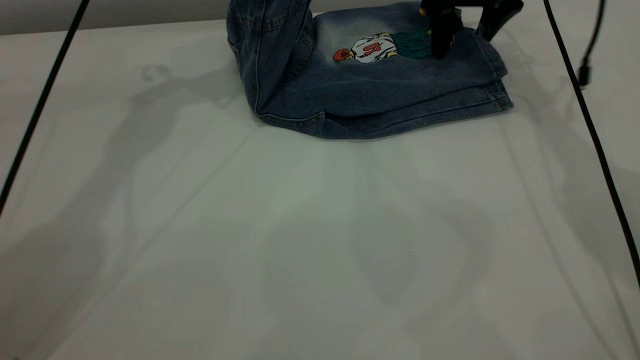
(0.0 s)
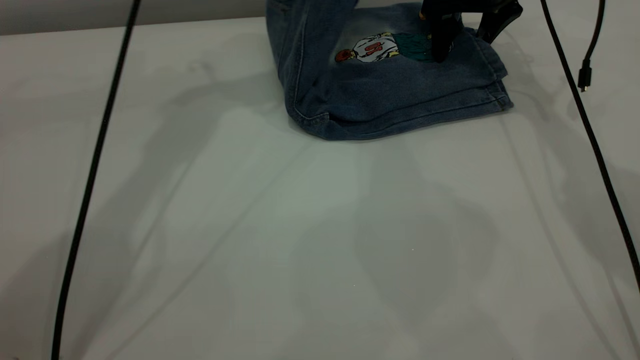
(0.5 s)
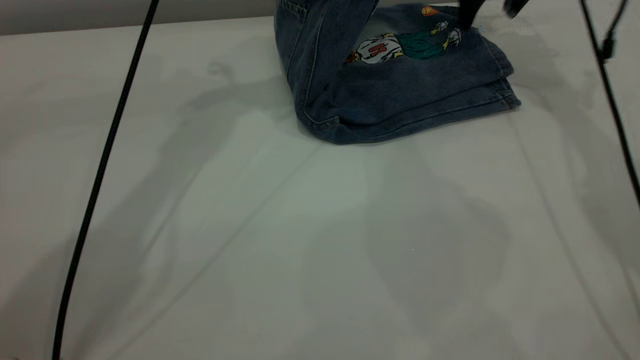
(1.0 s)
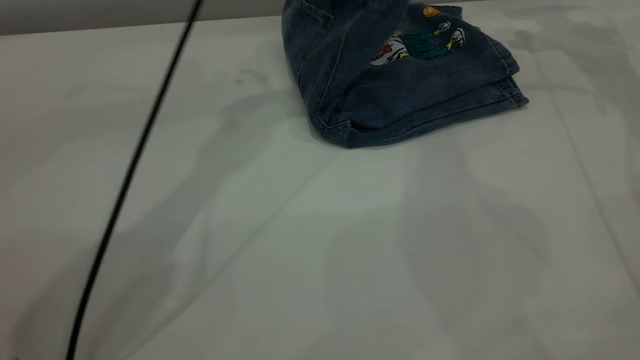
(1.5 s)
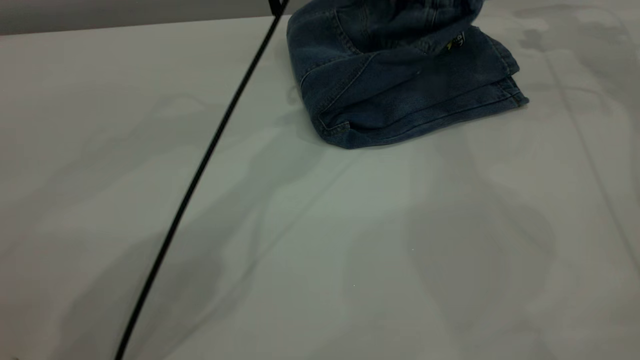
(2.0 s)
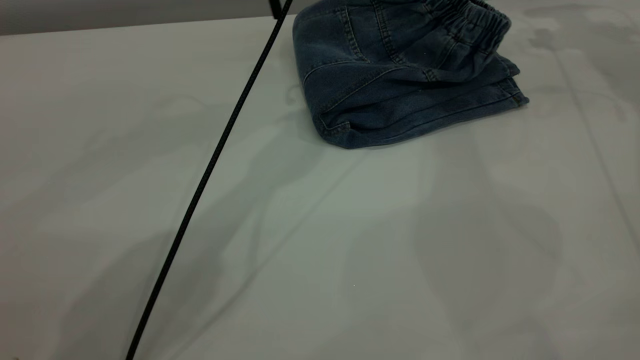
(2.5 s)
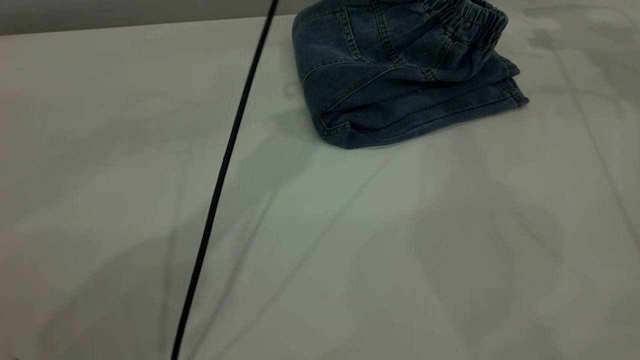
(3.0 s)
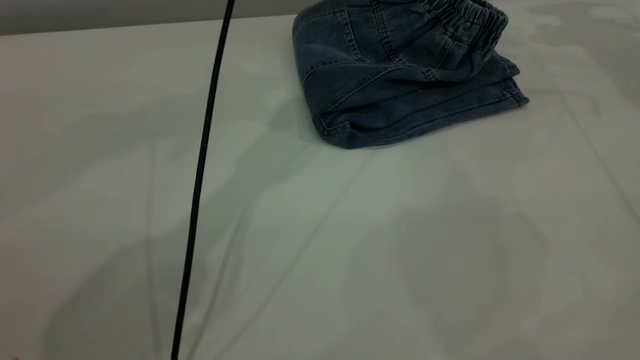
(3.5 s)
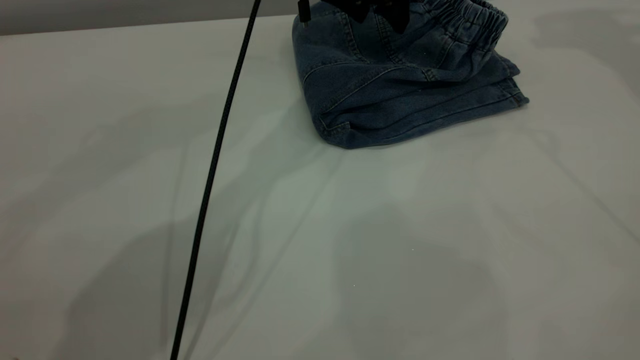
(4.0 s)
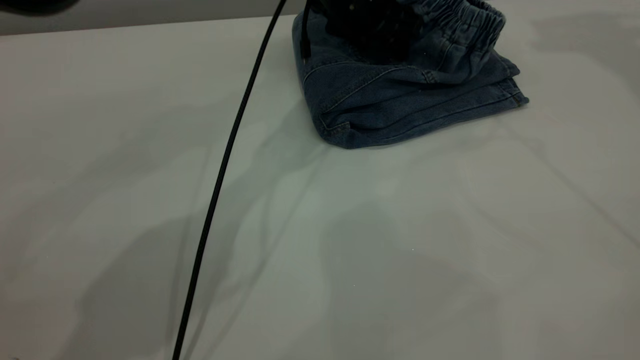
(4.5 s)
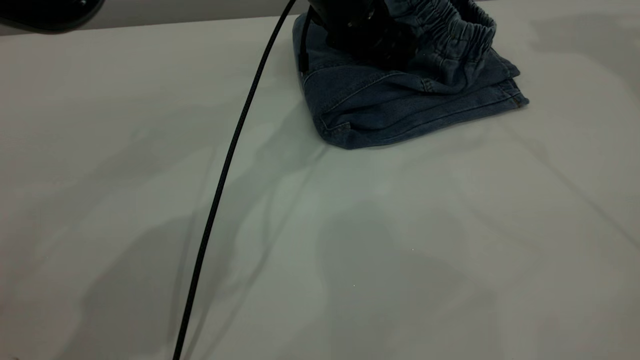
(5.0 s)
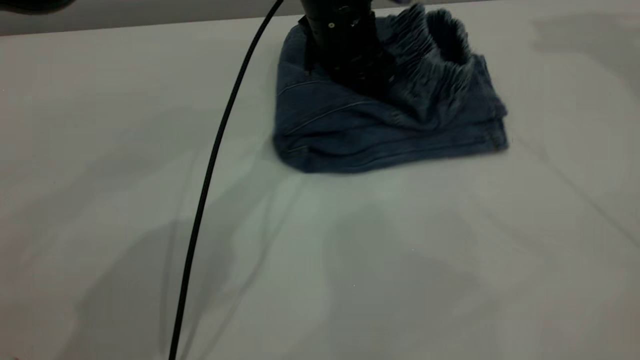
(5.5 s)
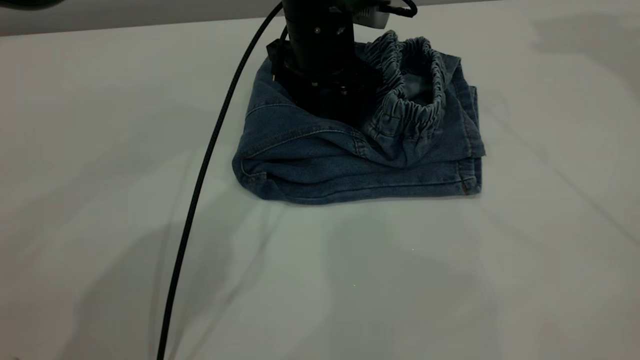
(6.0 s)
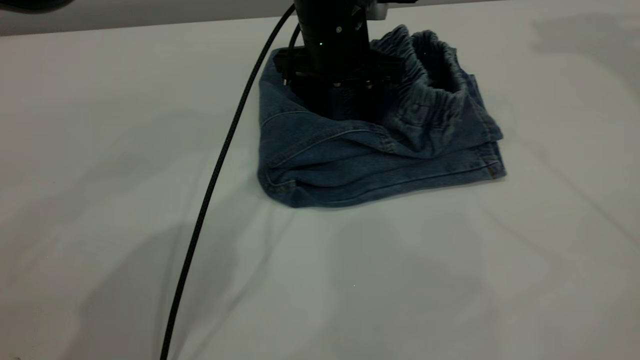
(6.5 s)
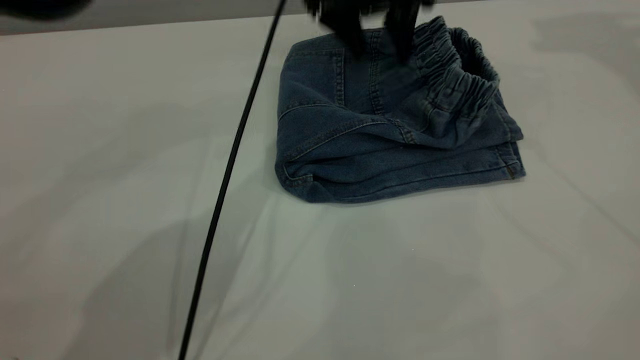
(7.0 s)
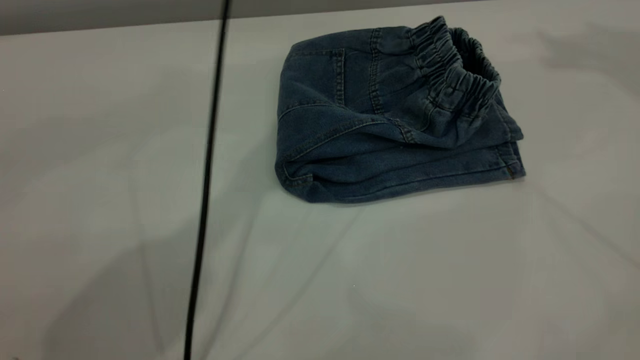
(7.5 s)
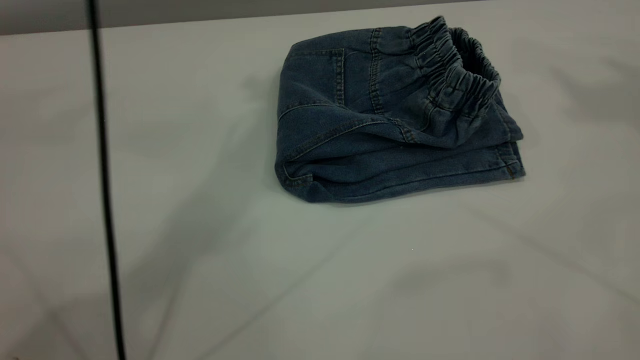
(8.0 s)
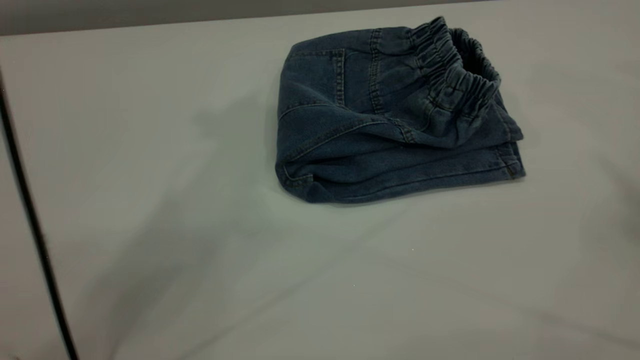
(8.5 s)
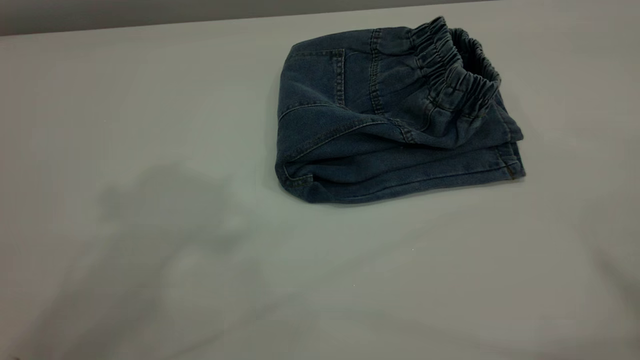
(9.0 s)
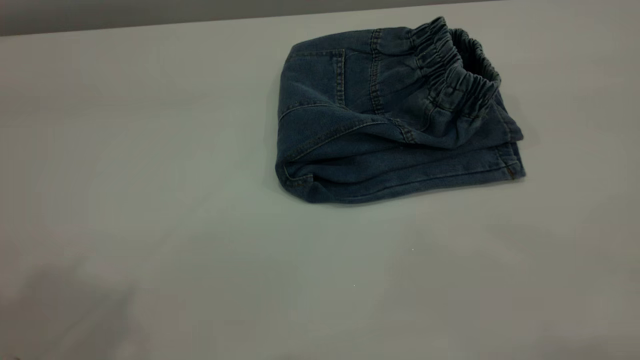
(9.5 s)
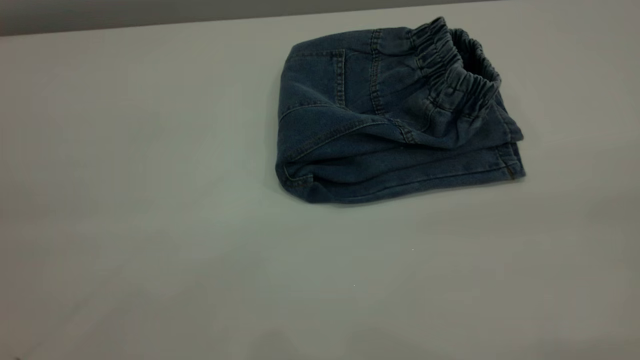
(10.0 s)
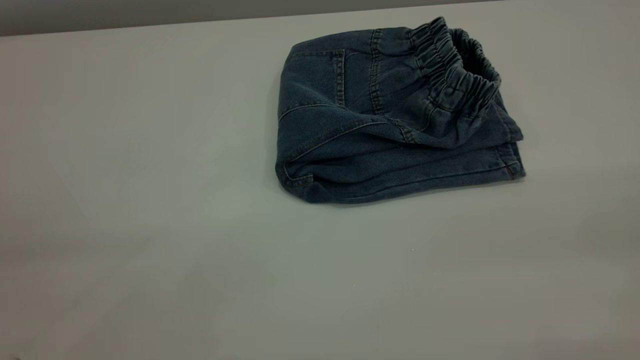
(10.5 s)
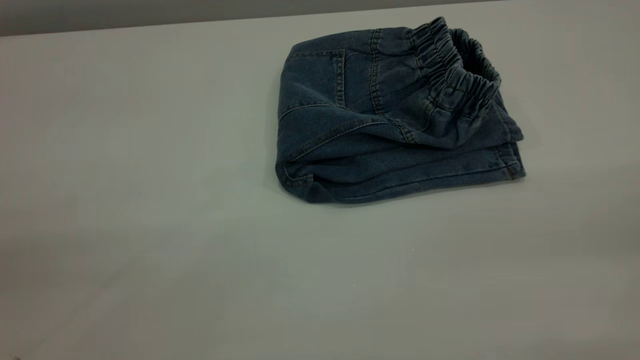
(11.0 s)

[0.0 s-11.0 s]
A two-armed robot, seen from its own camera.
Step, 0.0 to 2.5 s: Fold the pants from left to right.
0.0 to 2.0 s: The left gripper is displaced to the right by roughly 20 cm. The right gripper moves to the right and upward, some 15 cm.
2.0 to 3.5 s: The left gripper moves approximately 5 cm, and opens. Meanwhile the right gripper heads upward, covering roughly 5 cm.
3.5 to 5.5 s: The right gripper is displaced upward by approximately 15 cm; the left gripper heads downward, covering some 15 cm.
5.5 to 7.5 s: The right gripper is displaced upward and backward by roughly 10 cm. Meanwhile the left gripper goes roughly 25 cm upward.
7.5 to 9.0 s: The left gripper heads backward, upward and to the left, covering roughly 35 cm.

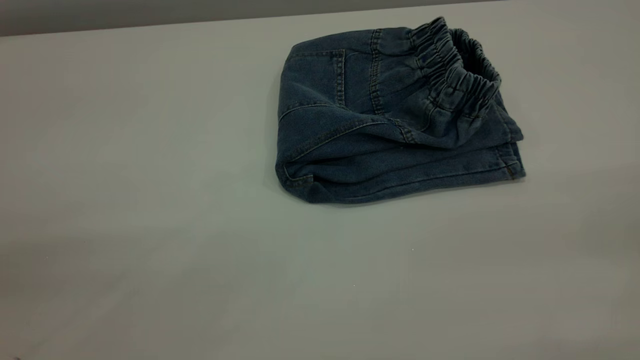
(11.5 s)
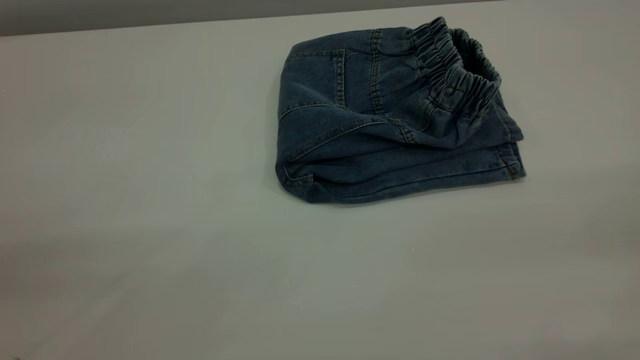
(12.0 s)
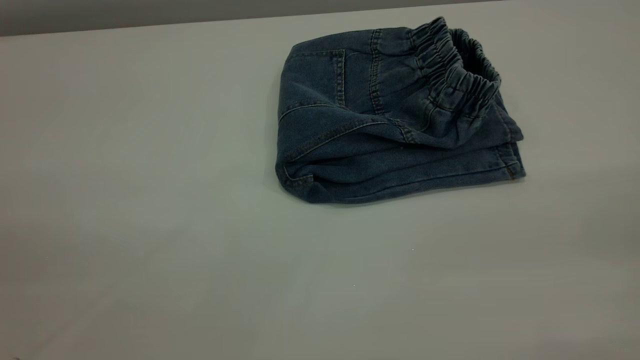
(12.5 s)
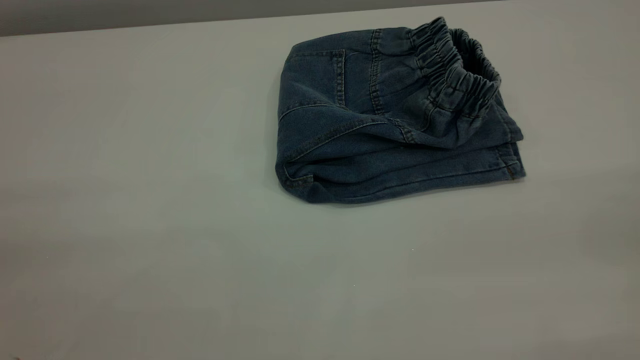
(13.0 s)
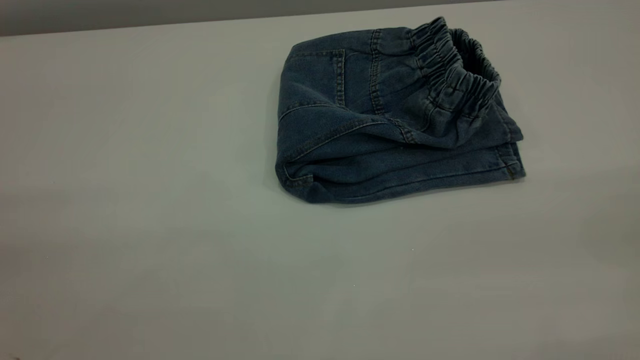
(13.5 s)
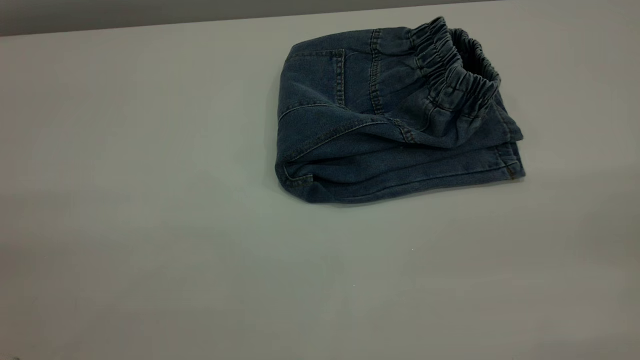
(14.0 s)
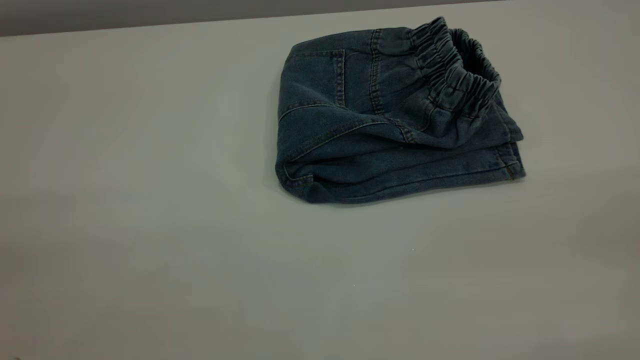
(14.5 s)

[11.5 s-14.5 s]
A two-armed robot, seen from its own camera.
13.0 to 14.5 s: The two grippers keep their place.

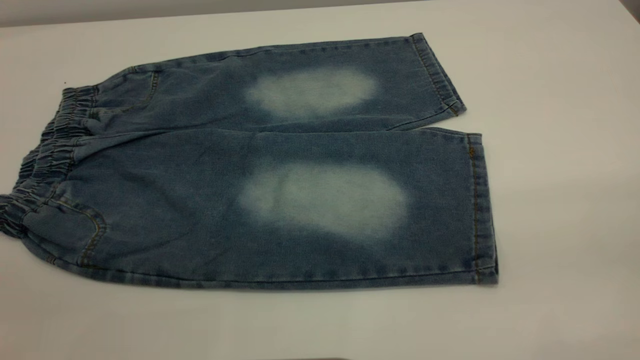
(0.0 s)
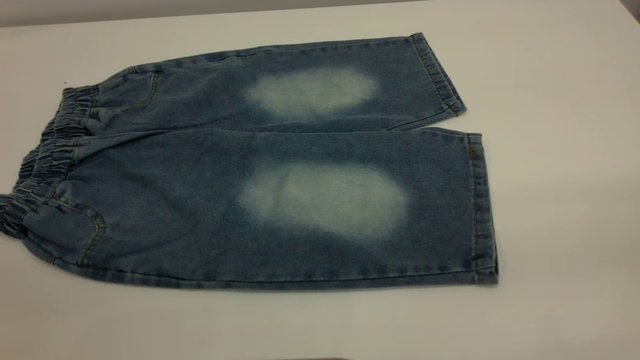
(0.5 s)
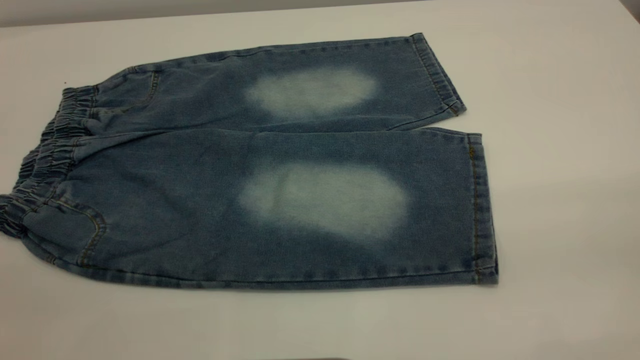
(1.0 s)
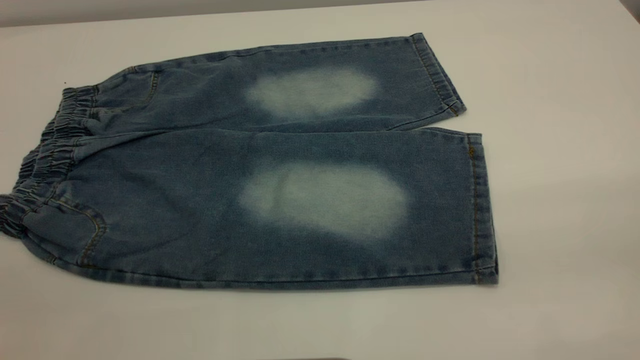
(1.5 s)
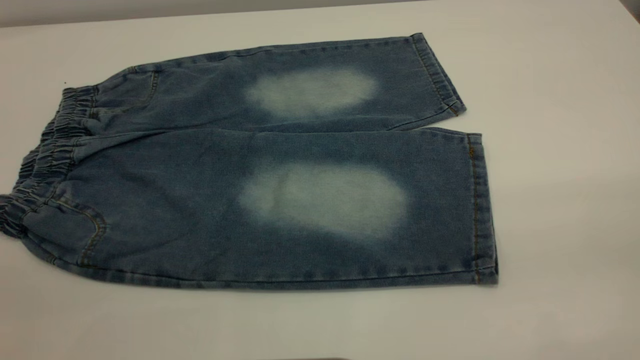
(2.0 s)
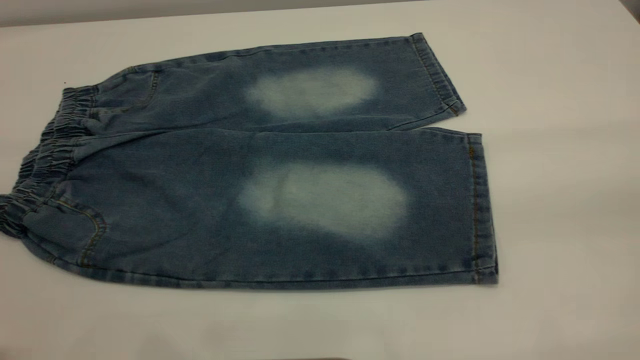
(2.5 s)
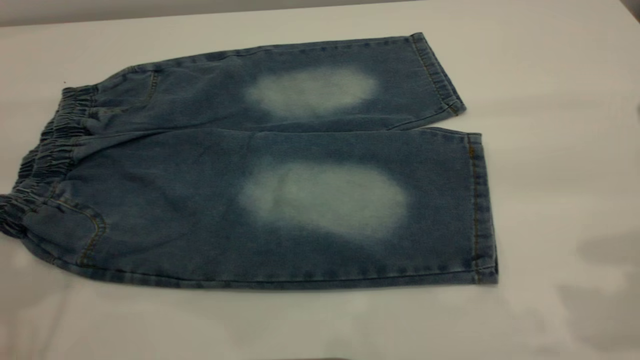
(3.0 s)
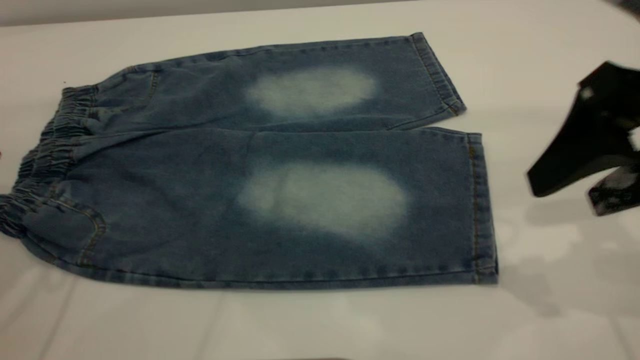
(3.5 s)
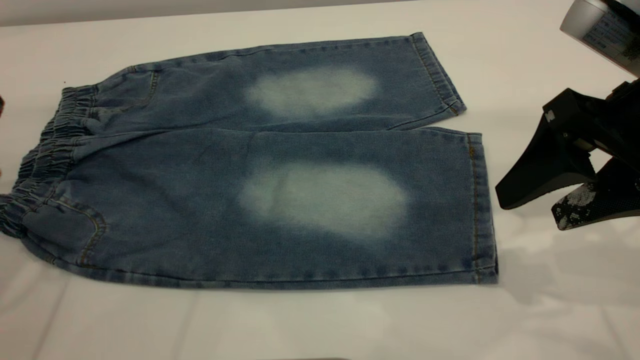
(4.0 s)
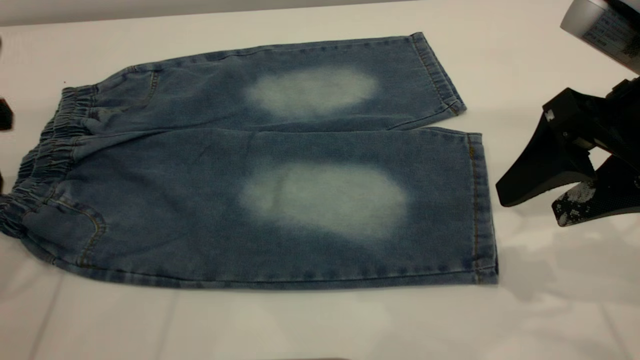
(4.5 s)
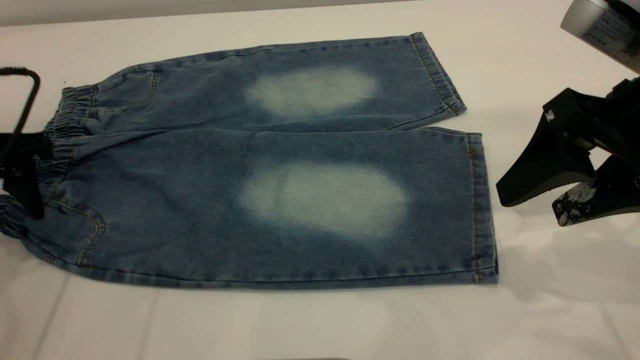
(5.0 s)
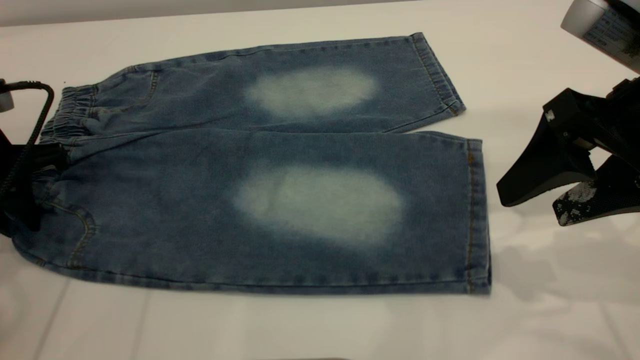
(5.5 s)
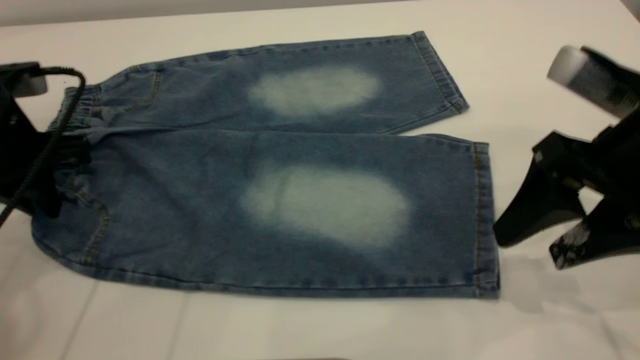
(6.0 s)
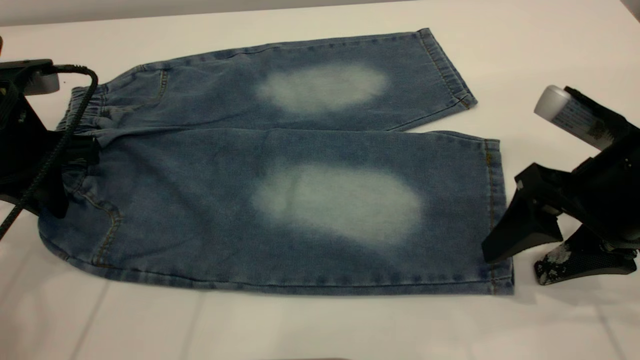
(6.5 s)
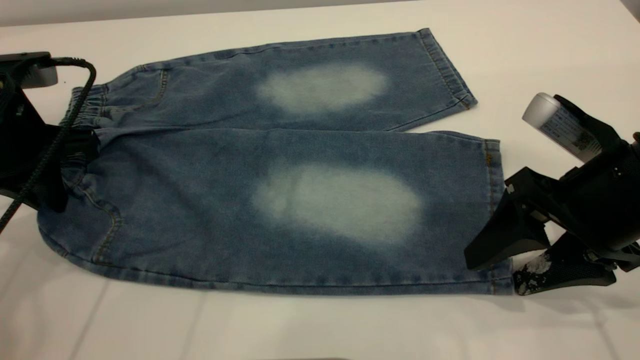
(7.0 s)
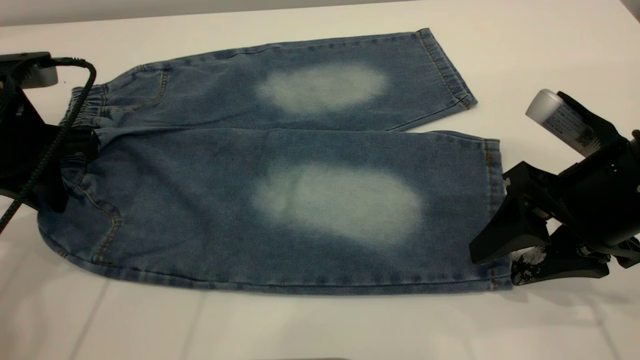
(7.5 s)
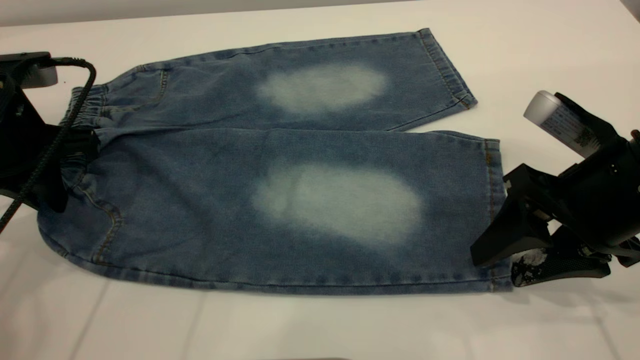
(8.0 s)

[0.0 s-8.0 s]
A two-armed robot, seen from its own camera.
0.0 to 2.0 s: The two grippers keep their place.
2.0 to 4.0 s: The right gripper moves forward and downward, about 30 cm.
4.0 to 6.0 s: The left gripper heads downward, covering about 5 cm, and closes its fingers.
6.0 to 8.0 s: There are only small adjustments of the grippers.
